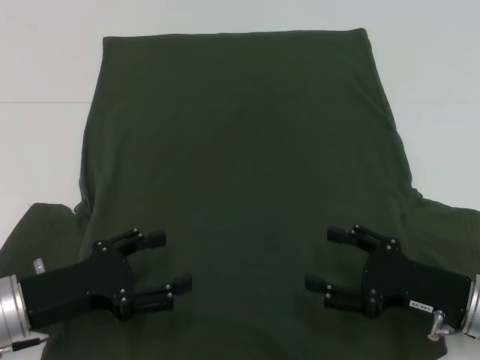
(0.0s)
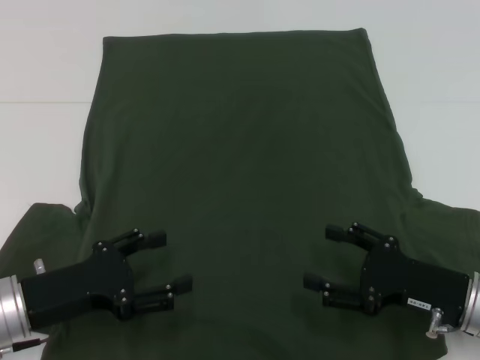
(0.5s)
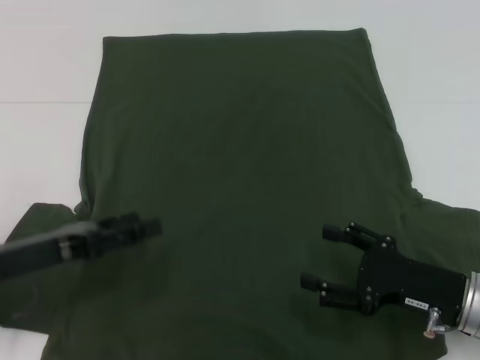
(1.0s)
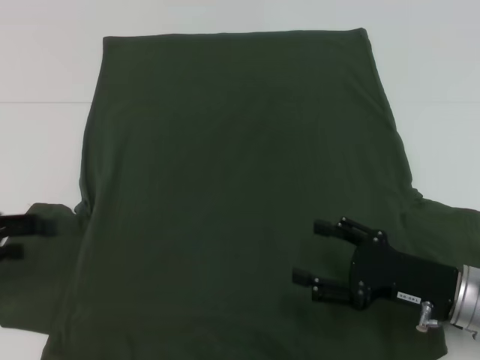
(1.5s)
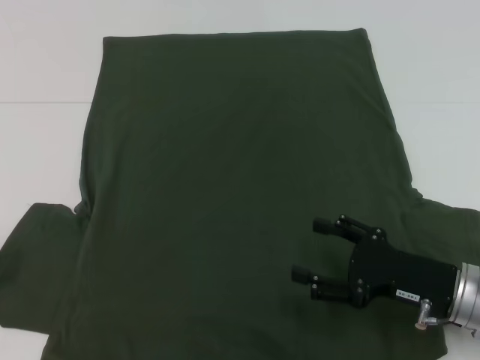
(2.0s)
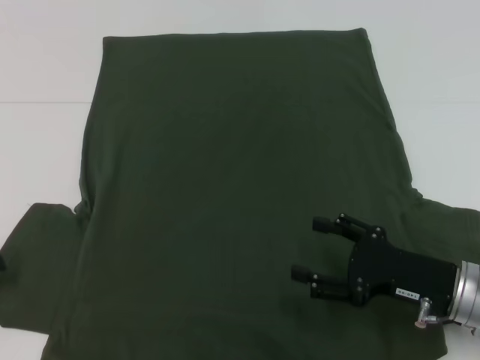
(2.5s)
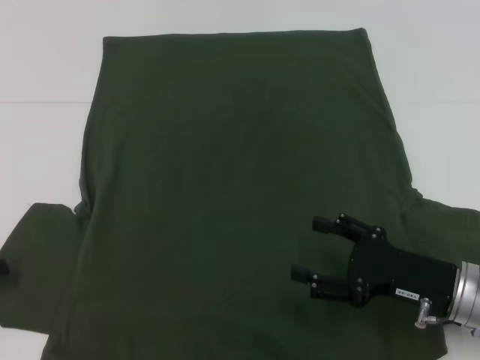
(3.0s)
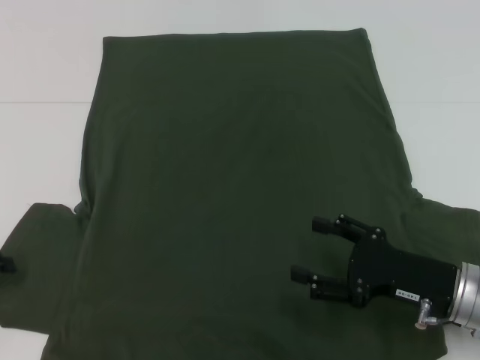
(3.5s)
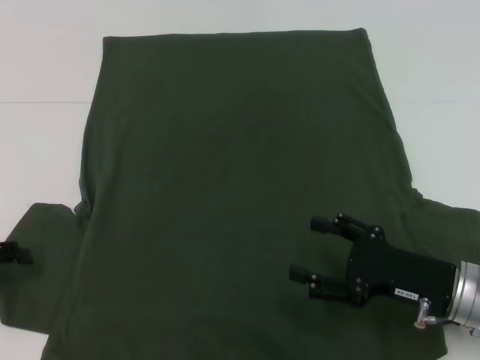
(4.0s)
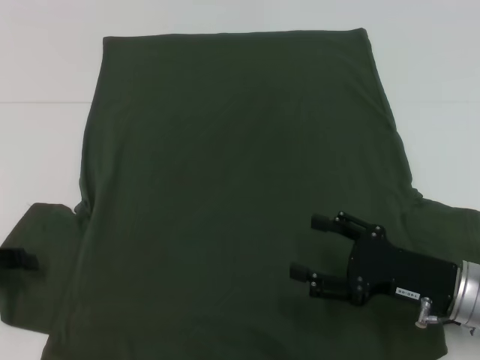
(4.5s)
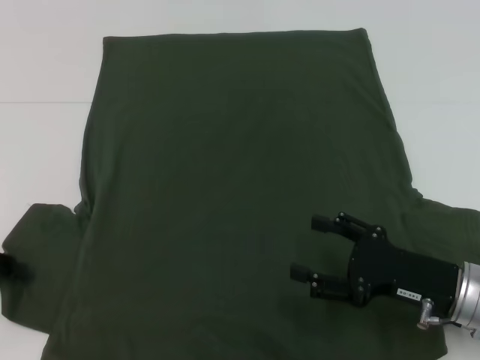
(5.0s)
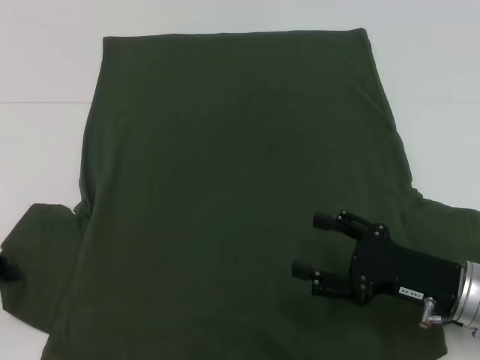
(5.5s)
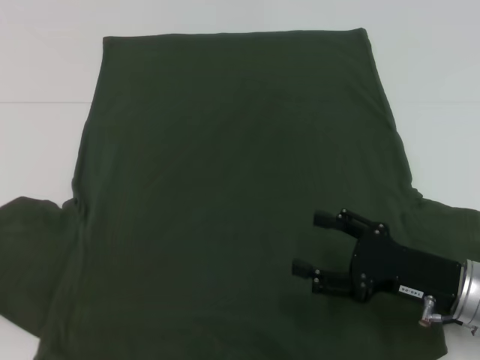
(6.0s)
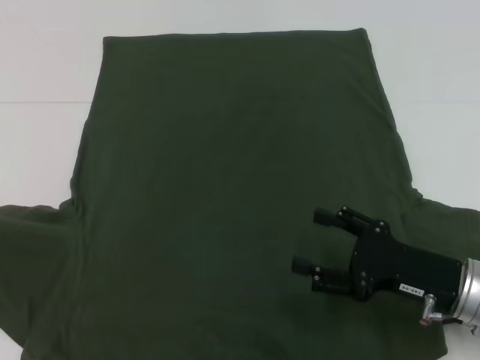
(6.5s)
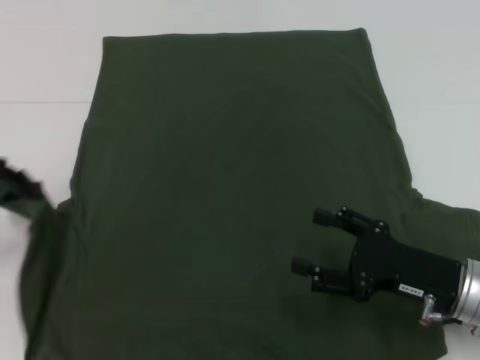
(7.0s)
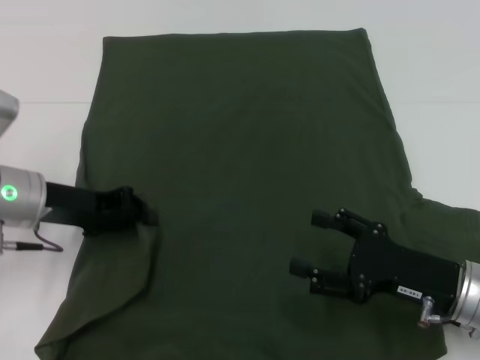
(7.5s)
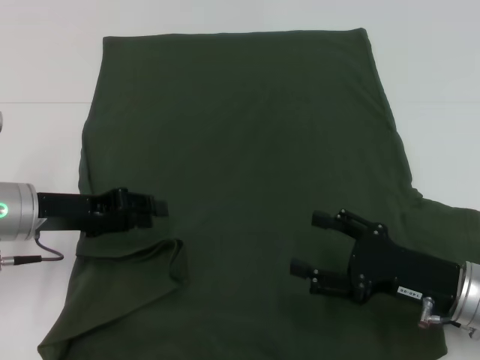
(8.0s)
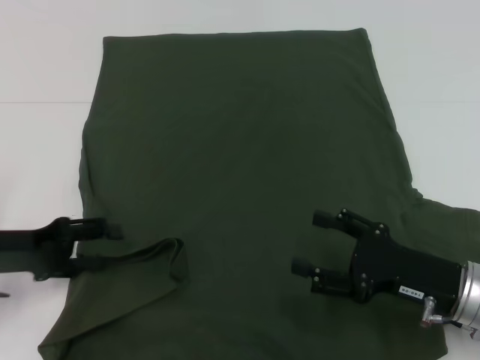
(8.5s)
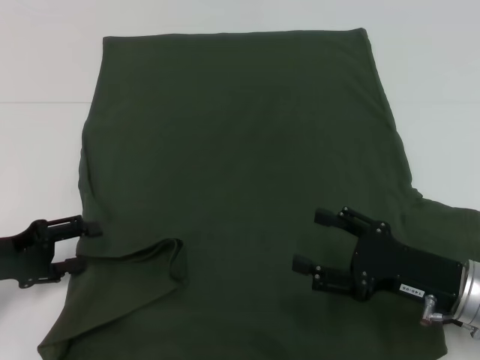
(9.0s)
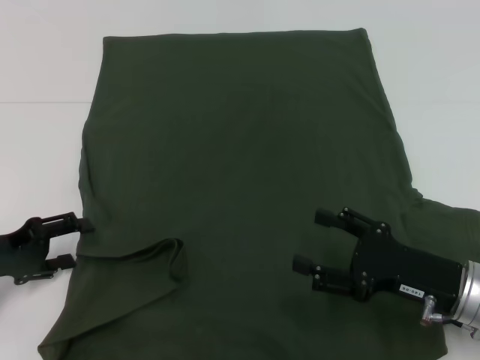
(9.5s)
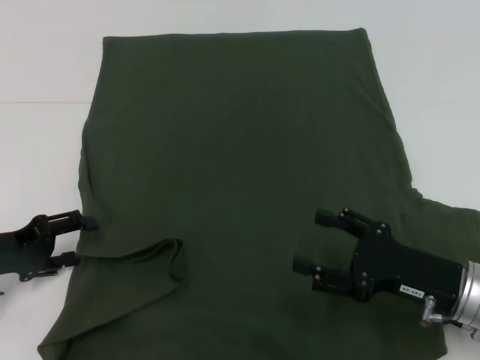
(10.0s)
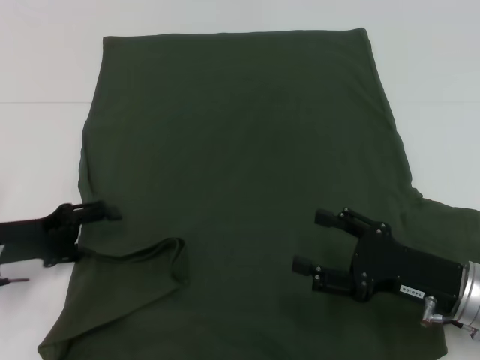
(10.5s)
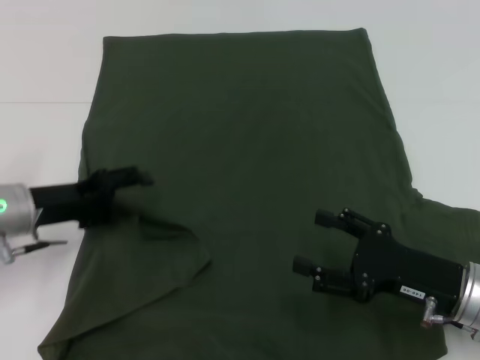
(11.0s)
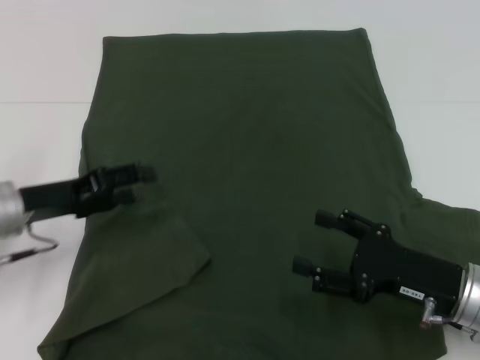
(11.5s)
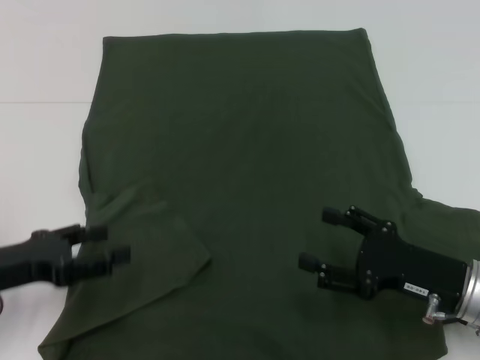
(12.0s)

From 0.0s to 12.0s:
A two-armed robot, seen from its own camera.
Step, from 0.0s to 11.5s: Fold the bottom left sleeve with your left hand.
From 0.0s to 2.0s: The left gripper goes about 15 cm to the left and upward.
From 4.0s to 6.0s: The left gripper closes up.
From 6.0s to 8.0s: The left gripper travels to the right by roughly 15 cm.
From 8.0s to 10.0s: The left gripper heads to the left, covering roughly 5 cm, and opens.

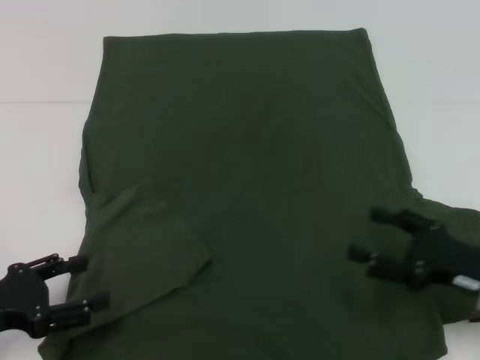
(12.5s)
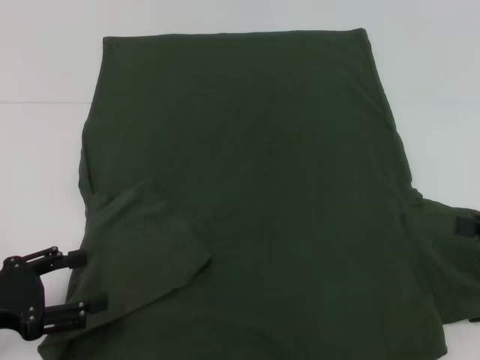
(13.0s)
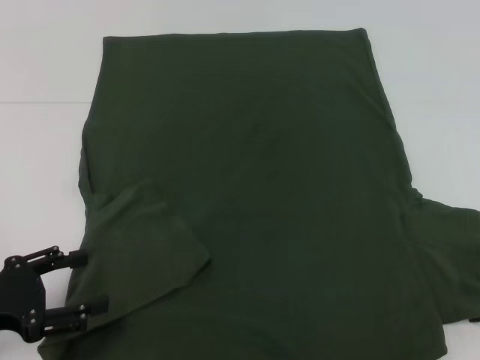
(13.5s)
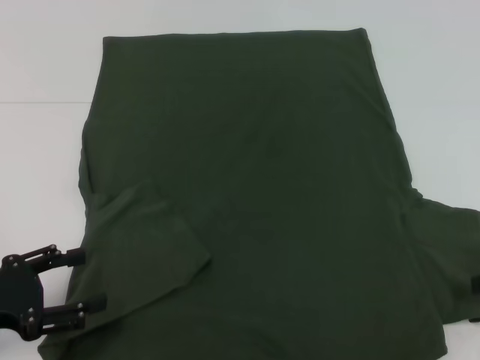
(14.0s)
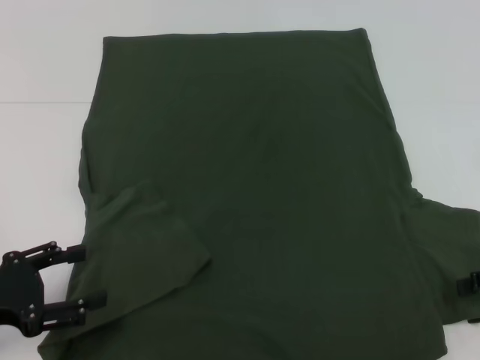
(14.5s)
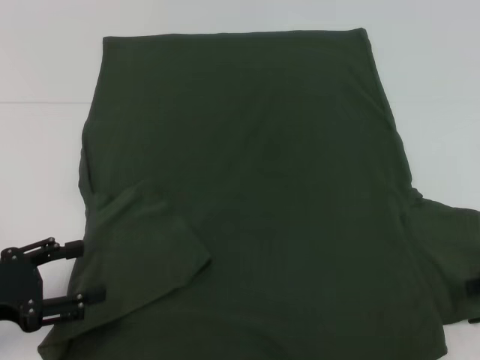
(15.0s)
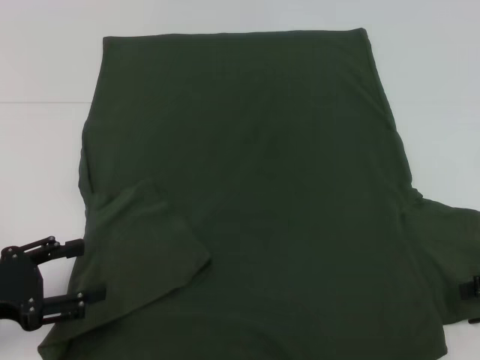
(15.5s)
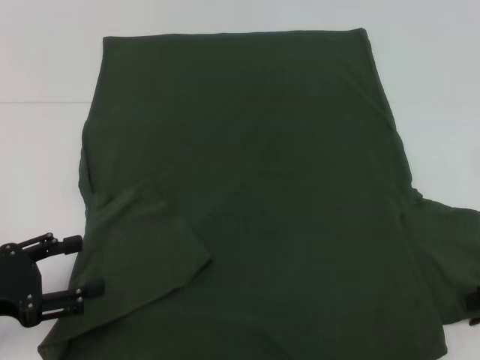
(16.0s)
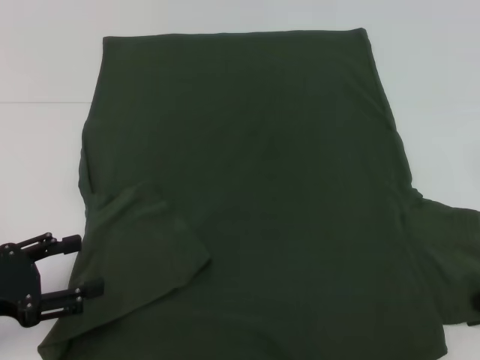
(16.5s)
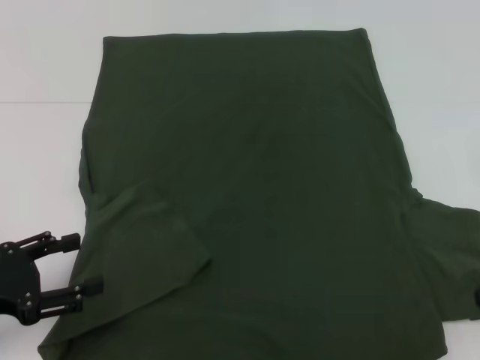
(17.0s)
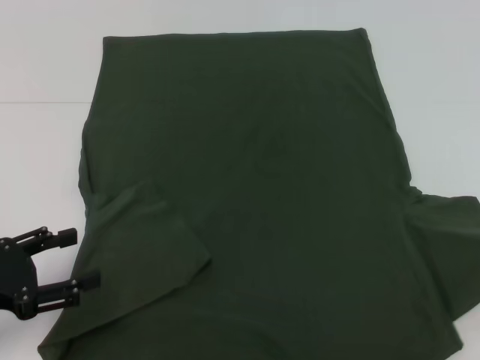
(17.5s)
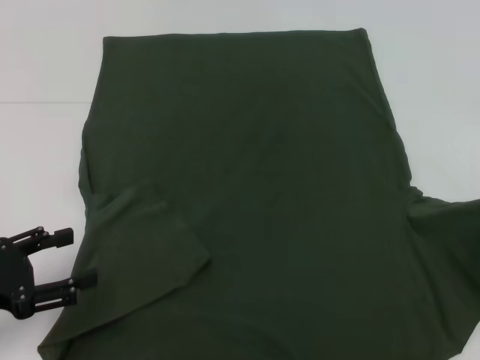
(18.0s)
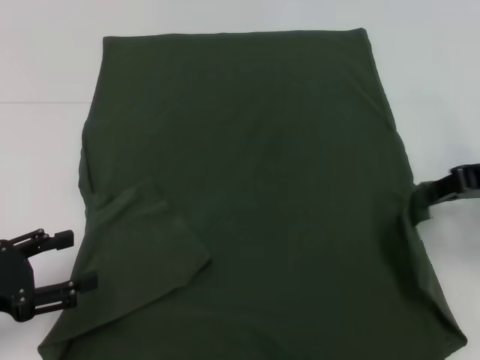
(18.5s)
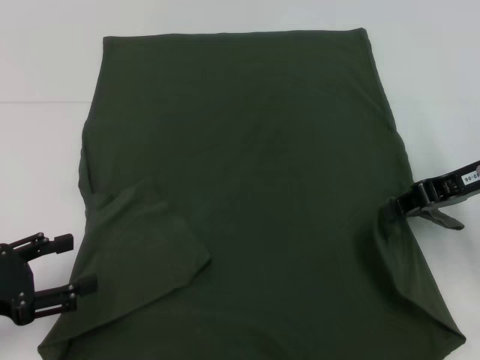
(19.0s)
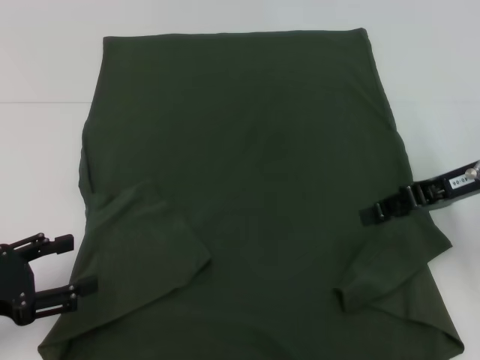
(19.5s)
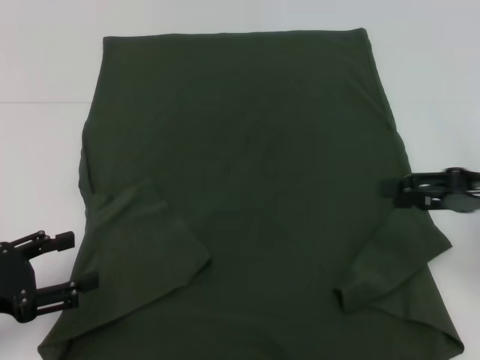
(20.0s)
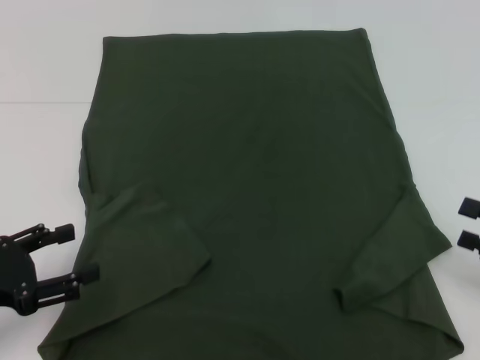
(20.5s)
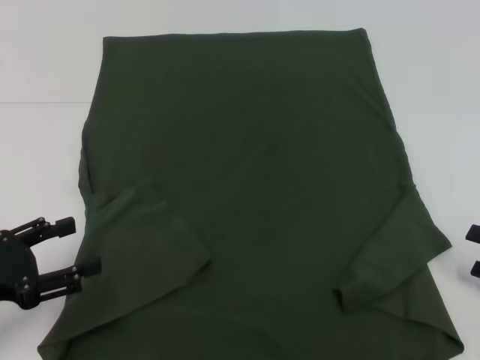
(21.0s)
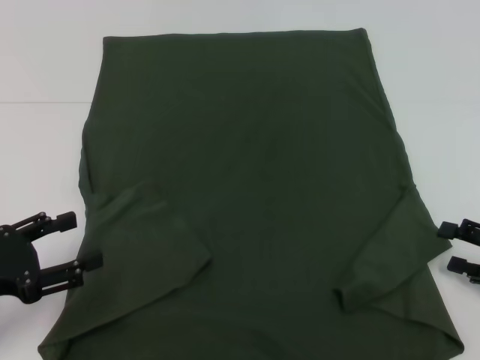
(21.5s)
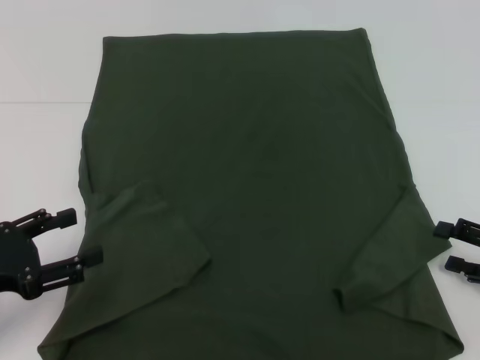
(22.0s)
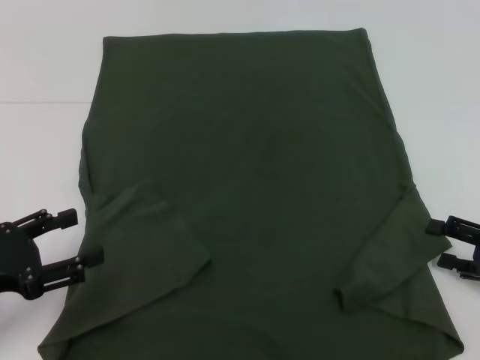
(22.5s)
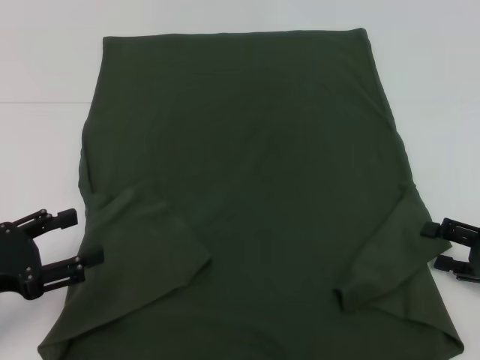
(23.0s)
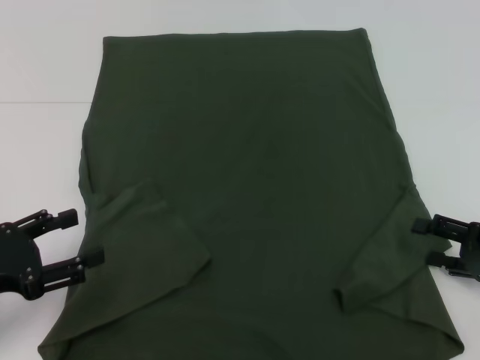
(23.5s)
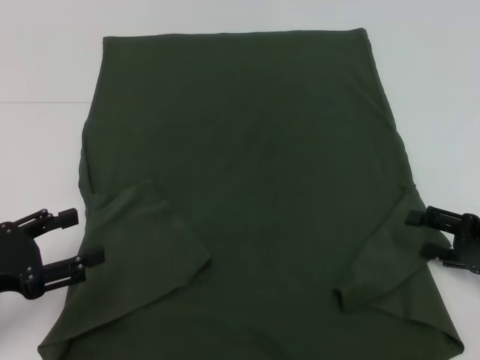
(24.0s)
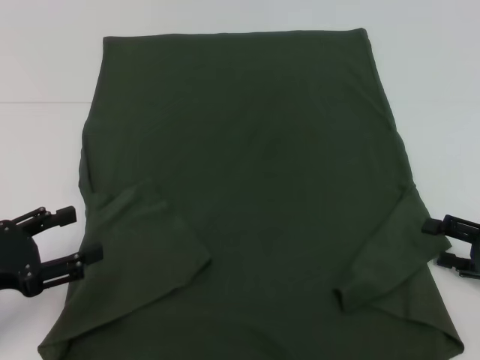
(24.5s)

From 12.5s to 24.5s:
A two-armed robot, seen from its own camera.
From 12.5s to 14.5s: The right gripper goes some 10 cm to the right and upward.
From 16.5s to 18.5s: The right gripper is displaced upward, forward and to the left by approximately 10 cm.
From 18.5s to 20.5s: The right gripper heads backward, downward and to the right, covering roughly 15 cm, and opens.
From 20.5s to 24.5s: The grippers move only a little.

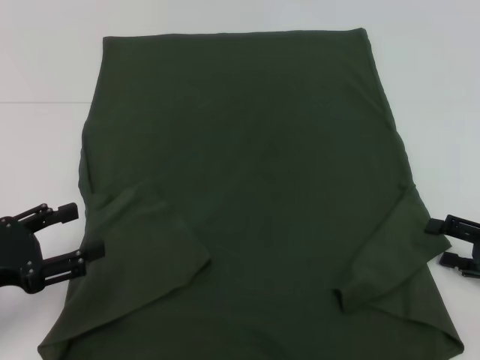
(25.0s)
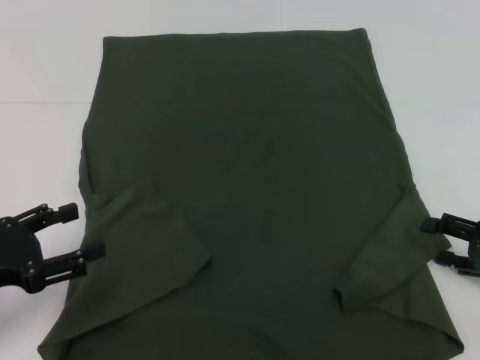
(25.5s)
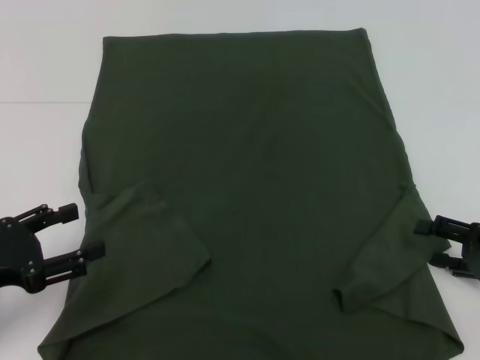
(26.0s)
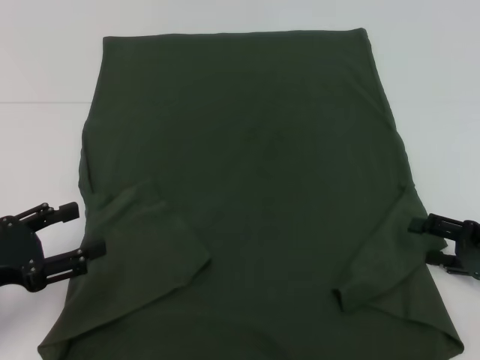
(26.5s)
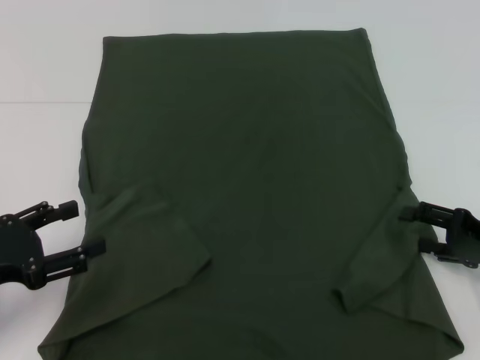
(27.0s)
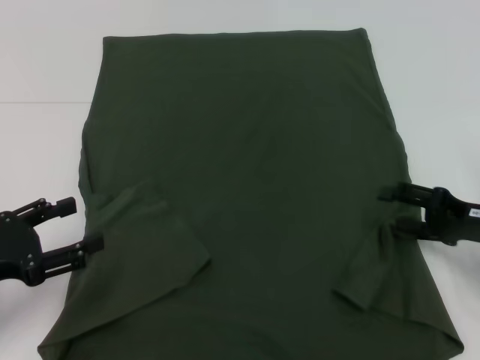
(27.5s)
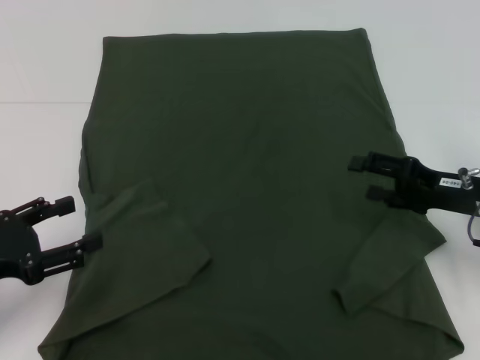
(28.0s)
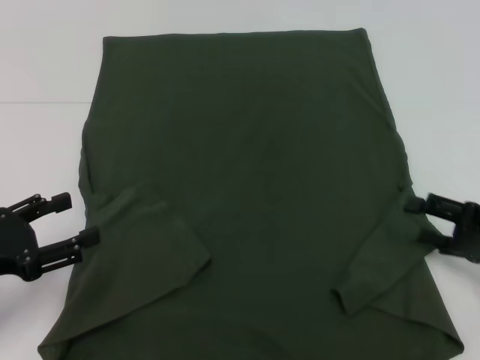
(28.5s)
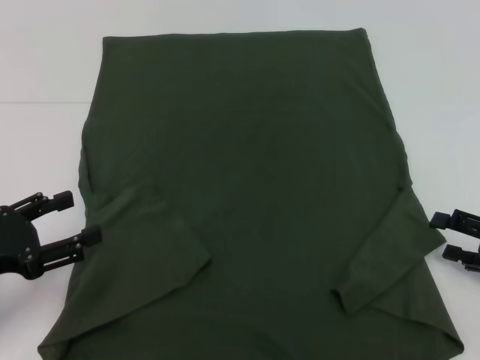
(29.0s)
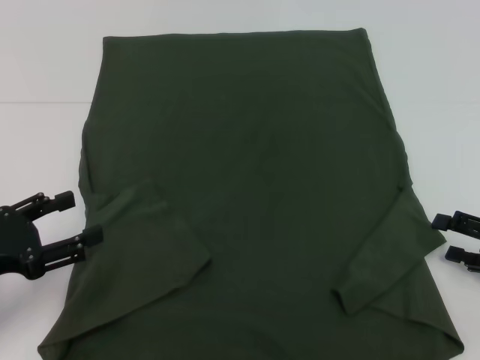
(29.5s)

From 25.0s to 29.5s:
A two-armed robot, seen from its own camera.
From 25.0s to 27.0s: The grippers make only small movements.
